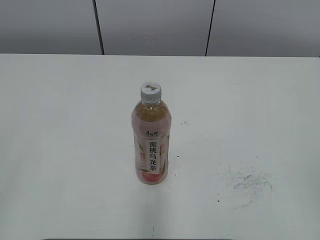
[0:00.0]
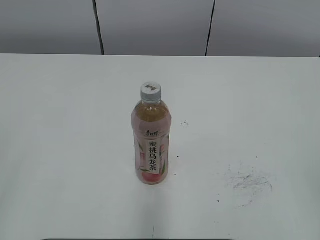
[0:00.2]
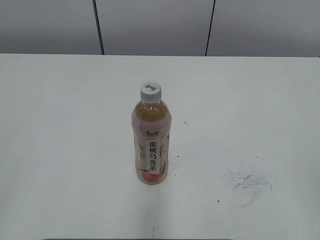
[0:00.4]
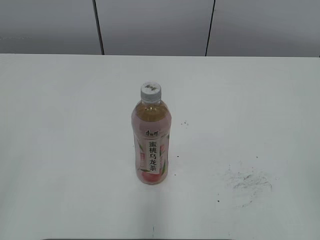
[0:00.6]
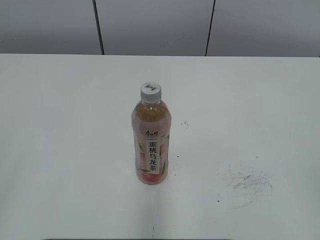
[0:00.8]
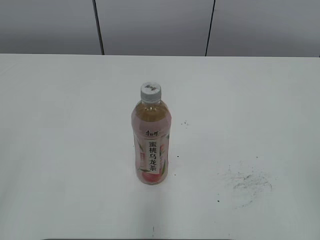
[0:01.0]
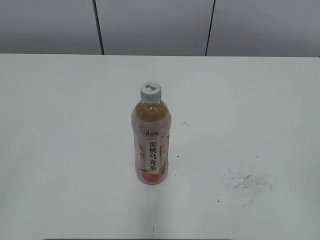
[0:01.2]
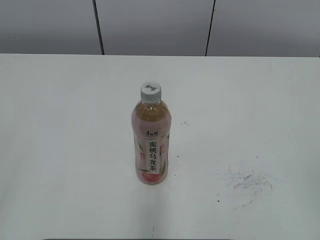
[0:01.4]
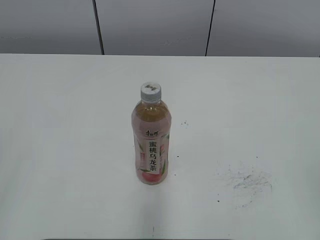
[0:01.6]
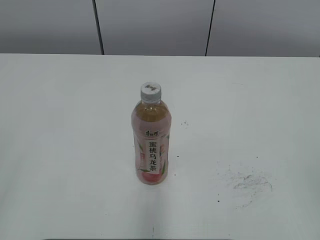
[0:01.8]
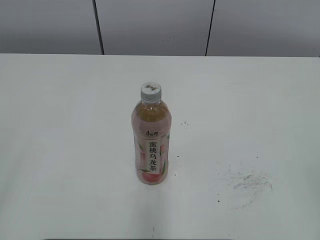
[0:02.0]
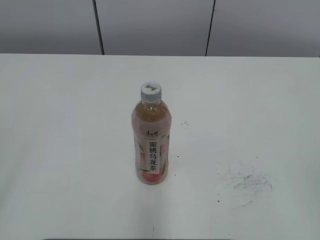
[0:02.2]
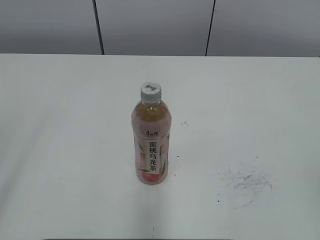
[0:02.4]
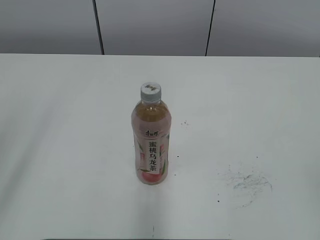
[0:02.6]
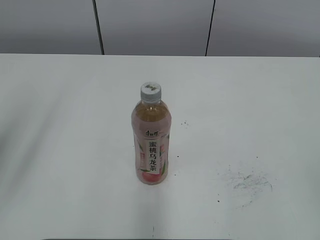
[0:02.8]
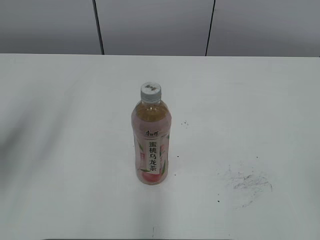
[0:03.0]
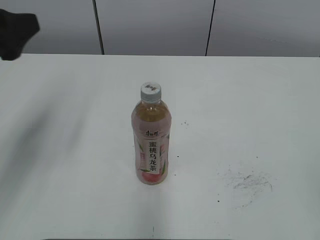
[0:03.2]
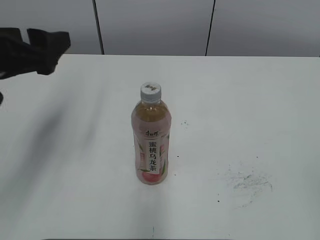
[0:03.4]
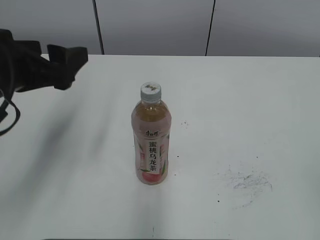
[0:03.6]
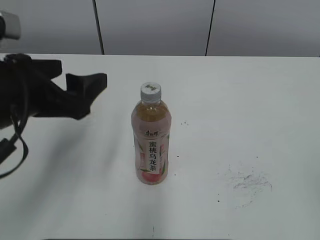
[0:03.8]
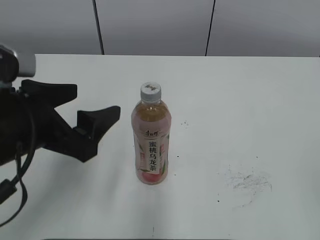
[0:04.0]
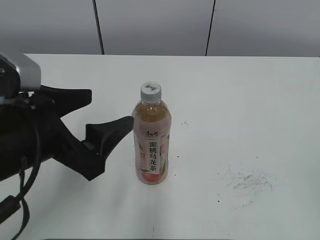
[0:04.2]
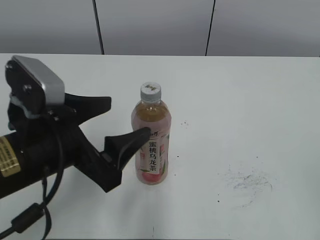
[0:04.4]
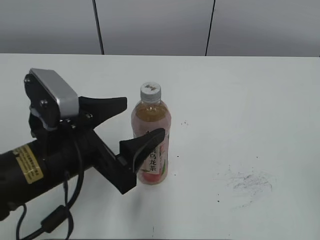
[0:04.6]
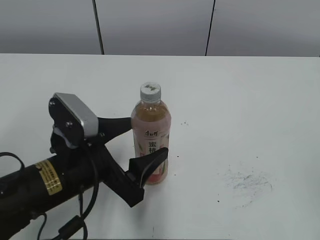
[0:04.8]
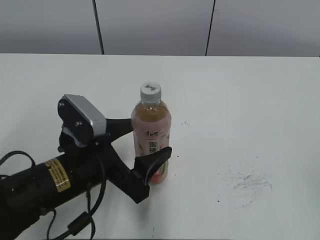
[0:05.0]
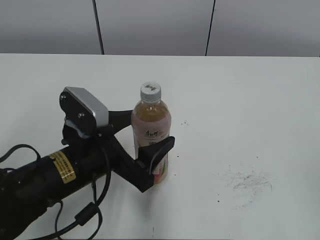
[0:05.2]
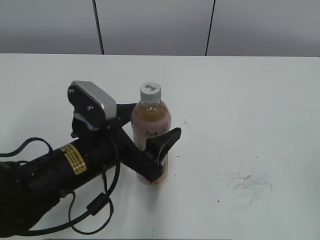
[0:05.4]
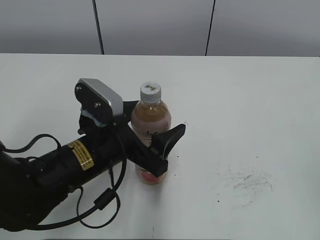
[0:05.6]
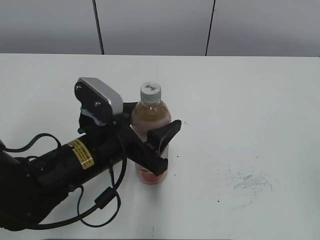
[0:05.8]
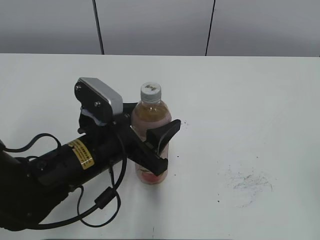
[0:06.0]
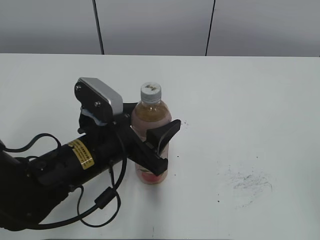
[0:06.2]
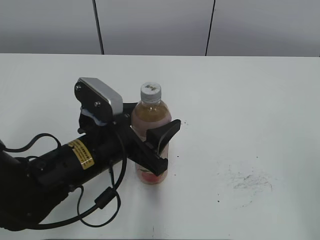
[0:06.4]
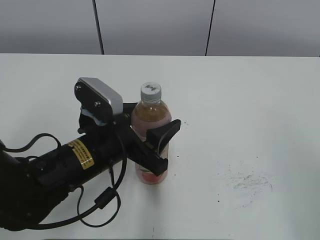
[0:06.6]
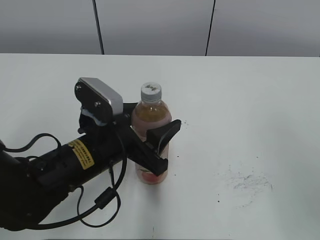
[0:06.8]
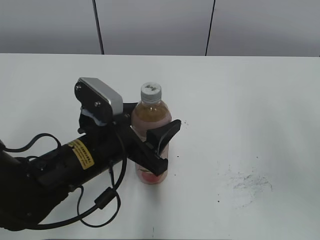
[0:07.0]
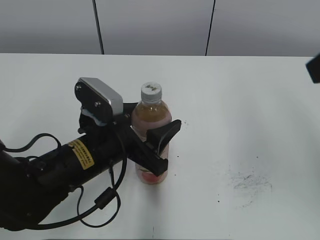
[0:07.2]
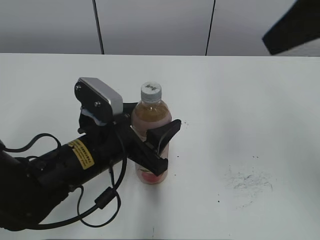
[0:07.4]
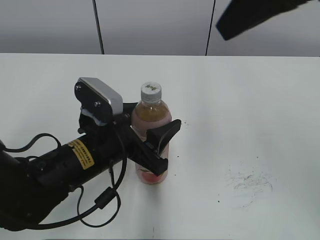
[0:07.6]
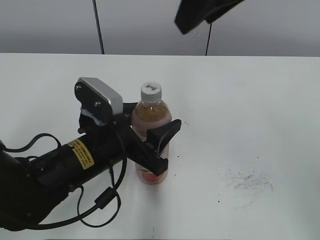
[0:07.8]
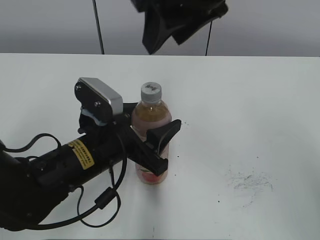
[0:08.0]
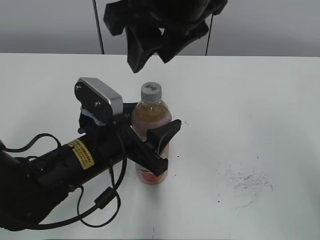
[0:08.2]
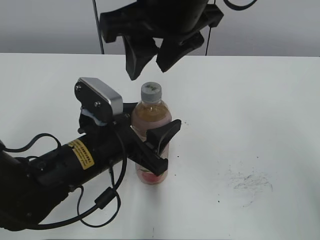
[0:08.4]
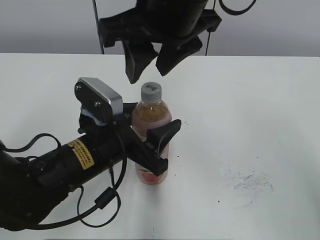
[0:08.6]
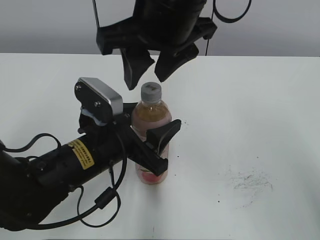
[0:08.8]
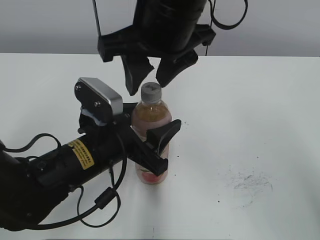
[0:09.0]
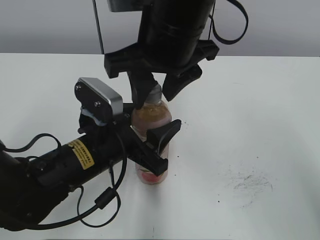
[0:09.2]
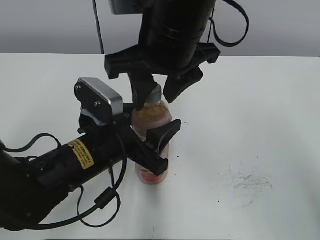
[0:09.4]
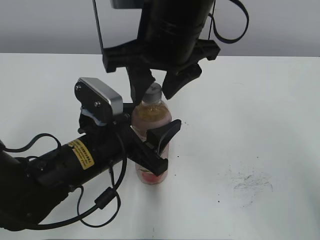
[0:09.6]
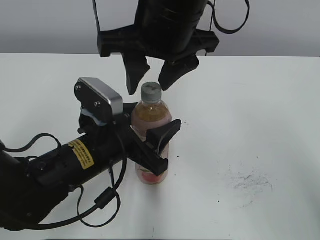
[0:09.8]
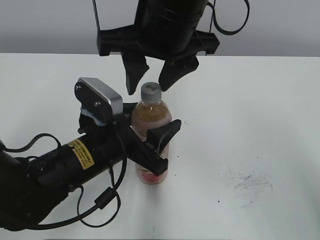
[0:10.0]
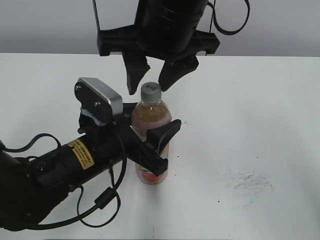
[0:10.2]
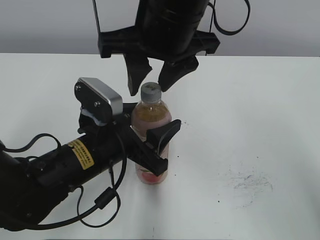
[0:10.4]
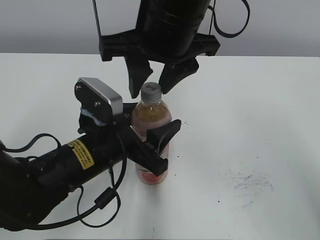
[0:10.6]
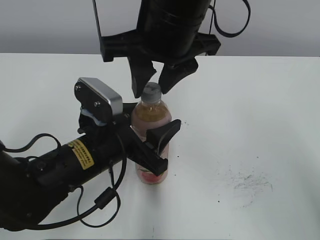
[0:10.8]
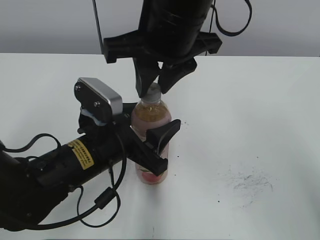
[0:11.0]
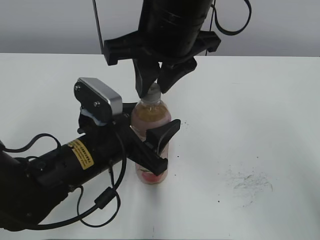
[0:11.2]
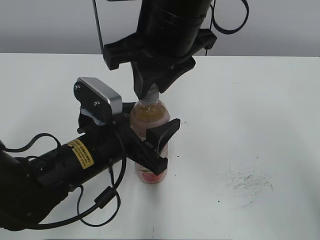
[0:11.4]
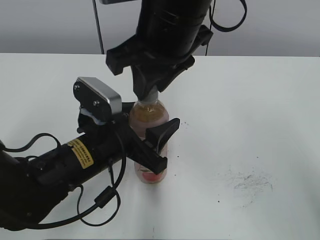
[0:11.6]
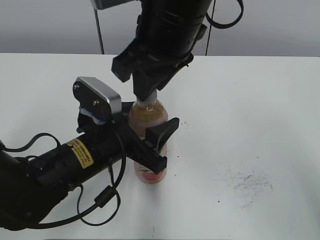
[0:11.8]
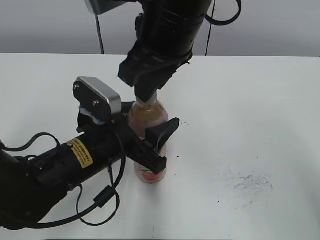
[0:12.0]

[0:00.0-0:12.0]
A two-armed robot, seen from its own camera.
Step, 0:00.0 to 0:05.6: Grab the Peach Oolong Tea with the left hand.
0:01.6 to 0:03.0: The left gripper goes some 20 cm forward.
0:03.0 to 0:04.4: The left gripper is displaced to the right and downward by approximately 20 cm, and opens.
0:04.4 to 0:06.0: The left gripper travels downward, to the right and forward by some 10 cm, and closes its fingers.
0:06.0 to 0:07.6: The right gripper is displaced forward, to the left and upward by about 30 cm.
0:07.6 to 0:09.0: The right gripper shifts some 15 cm to the left and downward.
0:09.0 to 0:10.4: The grippers make only small movements.
0:10.4 to 0:12.0: The right gripper closes its fingers.

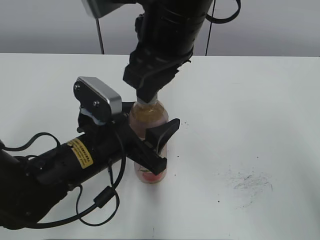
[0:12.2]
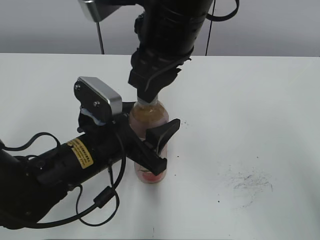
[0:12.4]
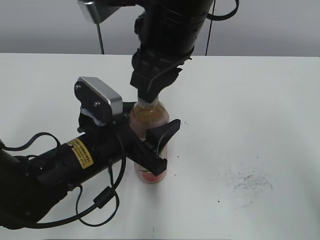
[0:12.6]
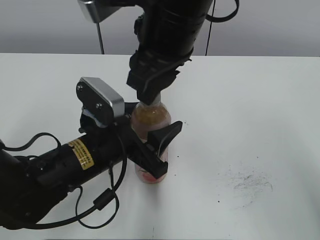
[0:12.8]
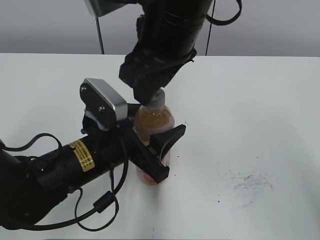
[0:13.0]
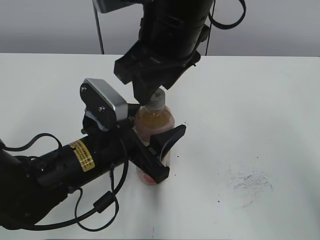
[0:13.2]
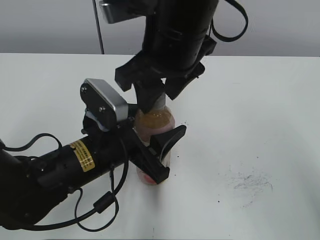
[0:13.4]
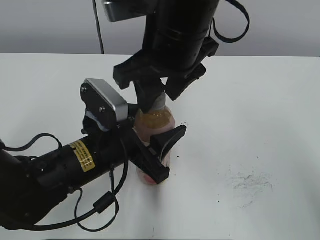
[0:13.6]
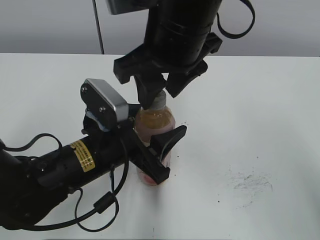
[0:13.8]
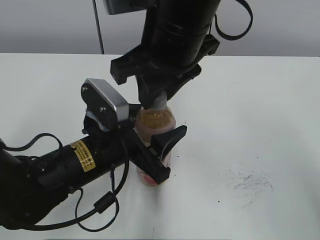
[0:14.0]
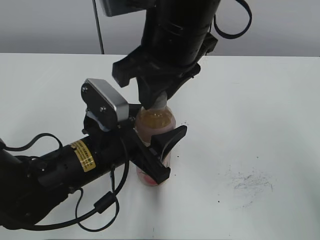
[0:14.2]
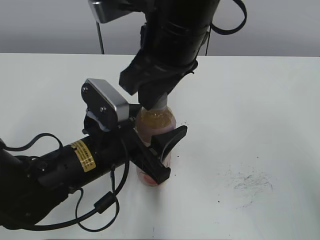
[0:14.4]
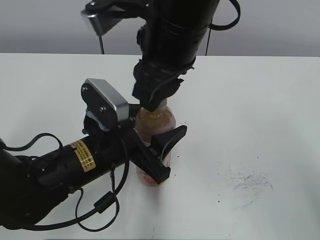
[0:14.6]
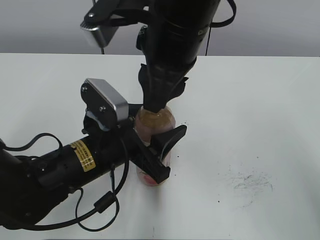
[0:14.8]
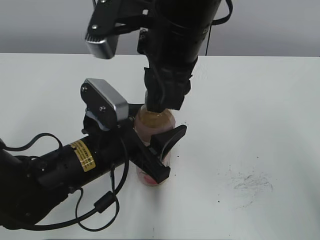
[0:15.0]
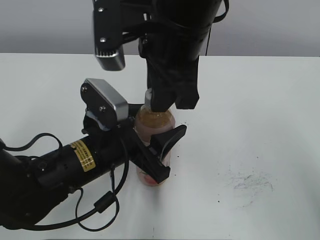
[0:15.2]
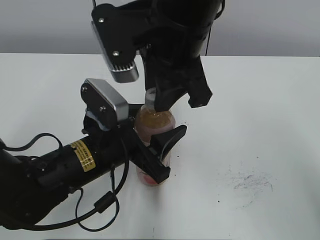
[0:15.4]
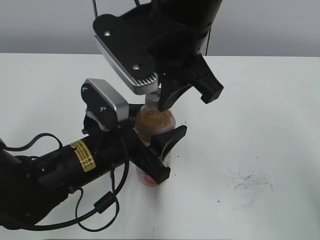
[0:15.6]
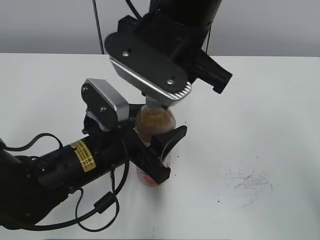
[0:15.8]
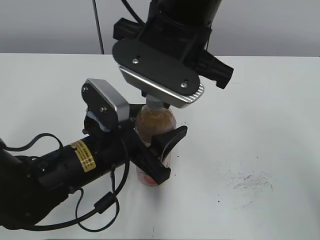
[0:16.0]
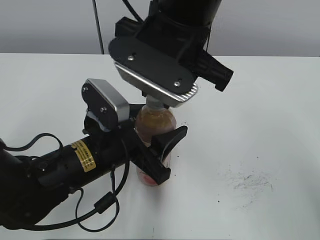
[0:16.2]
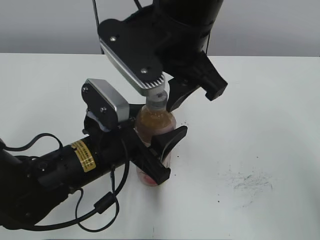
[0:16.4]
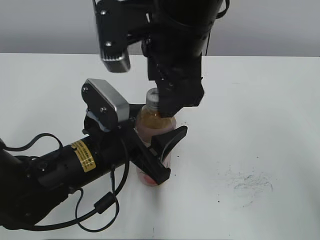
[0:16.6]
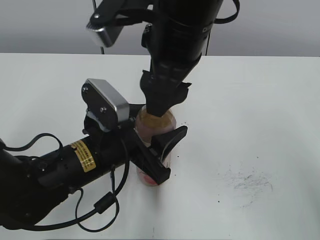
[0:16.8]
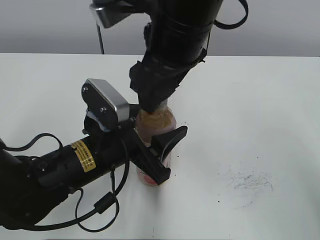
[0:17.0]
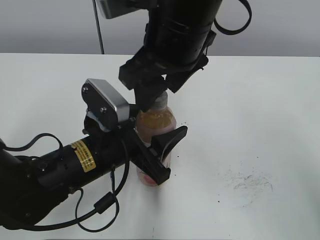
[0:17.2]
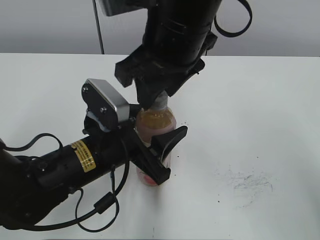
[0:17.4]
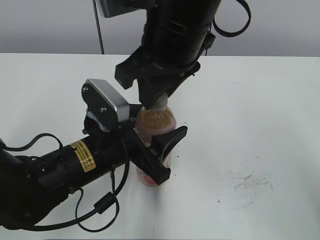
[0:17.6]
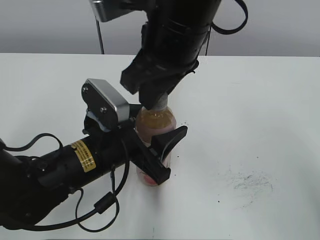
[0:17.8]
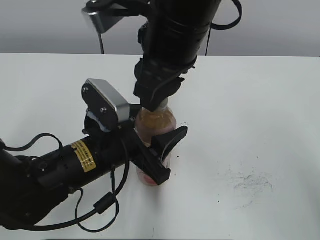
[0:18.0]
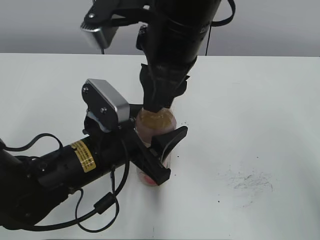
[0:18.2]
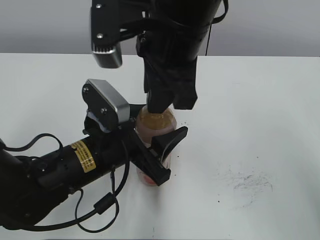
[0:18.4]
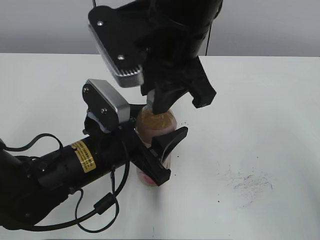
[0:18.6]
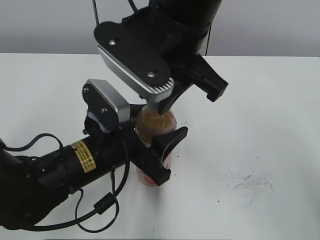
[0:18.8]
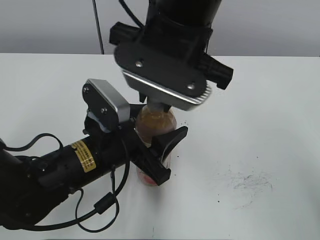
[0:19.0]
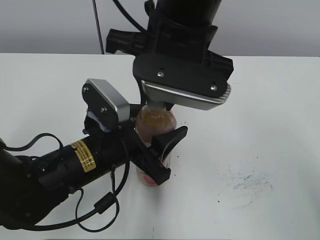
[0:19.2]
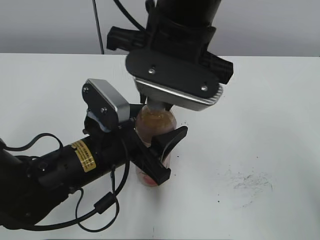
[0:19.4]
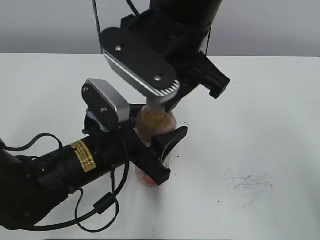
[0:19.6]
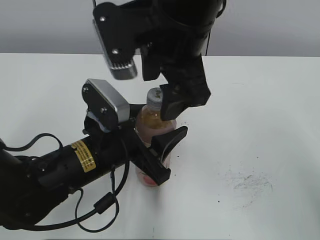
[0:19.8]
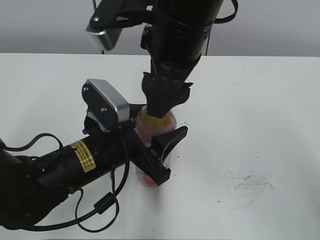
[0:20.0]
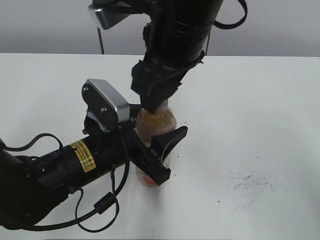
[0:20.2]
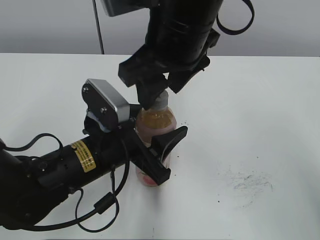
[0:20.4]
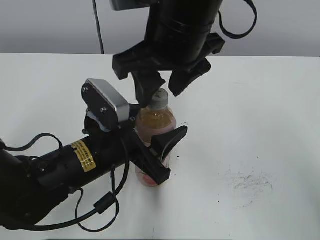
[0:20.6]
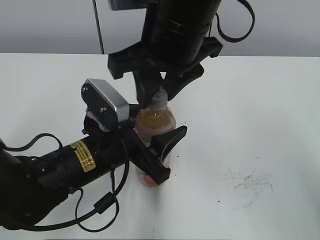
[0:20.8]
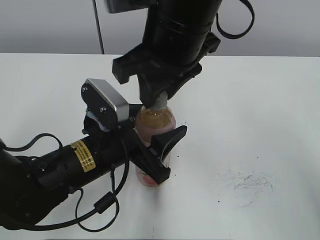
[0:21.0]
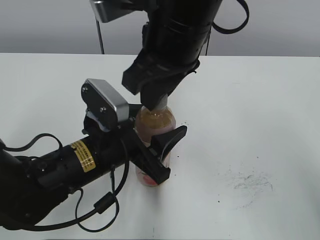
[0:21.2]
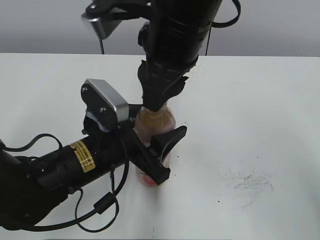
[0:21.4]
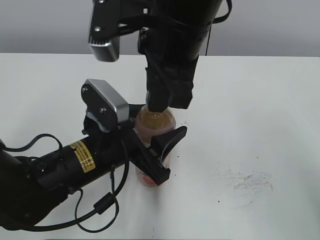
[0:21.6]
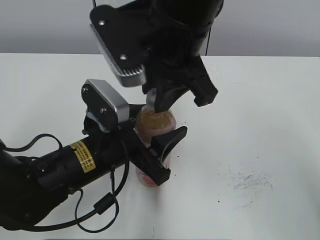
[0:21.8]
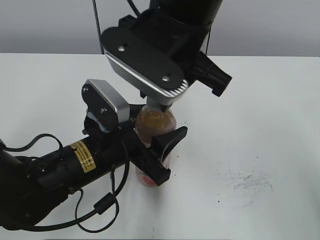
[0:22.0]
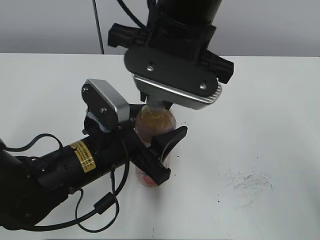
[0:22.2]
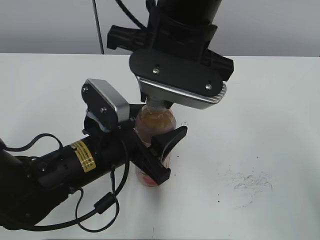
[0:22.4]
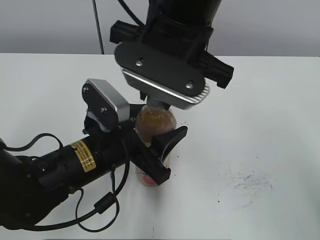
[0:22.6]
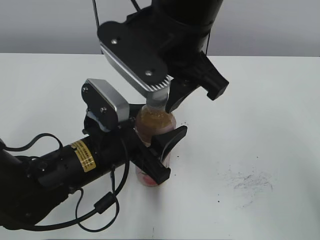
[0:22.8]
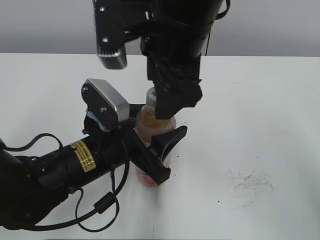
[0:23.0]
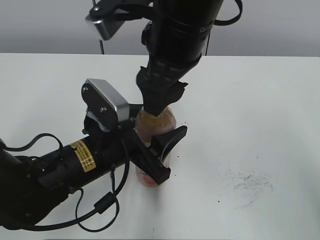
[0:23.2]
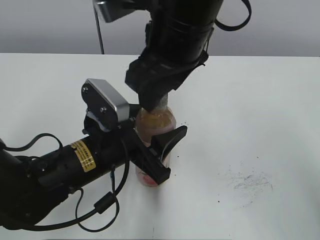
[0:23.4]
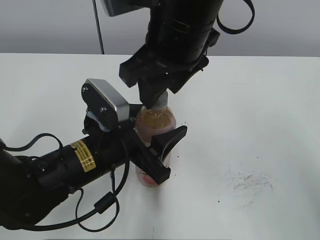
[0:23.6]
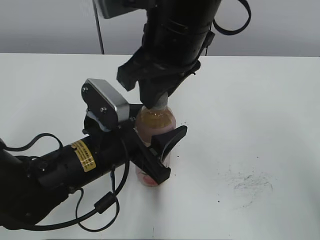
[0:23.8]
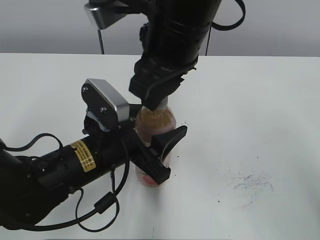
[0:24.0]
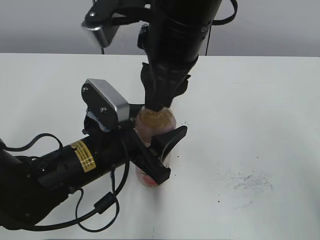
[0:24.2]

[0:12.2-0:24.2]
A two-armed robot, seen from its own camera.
0:12.2 to 0:13.8: The right gripper opens.
0:13.8 to 0:15.2: The right gripper closes its fingers.
0:15.2 to 0:16.6: The right gripper opens up.
0:16.6 to 0:18.2: The right gripper closes.
0:18.2 to 0:19.8: The right gripper opens up.
0:19.8 to 0:21.2: The right gripper closes its fingers.
0:22.6 to 0:24.2: The right gripper opens and closes again.
